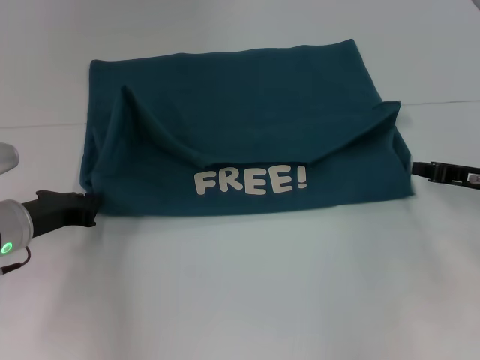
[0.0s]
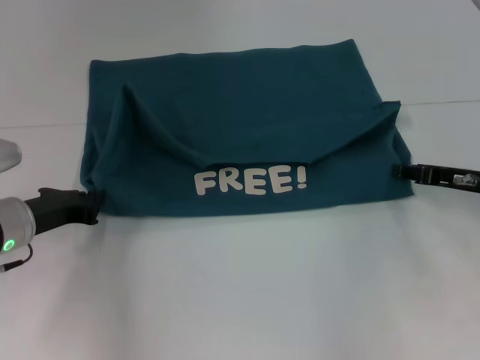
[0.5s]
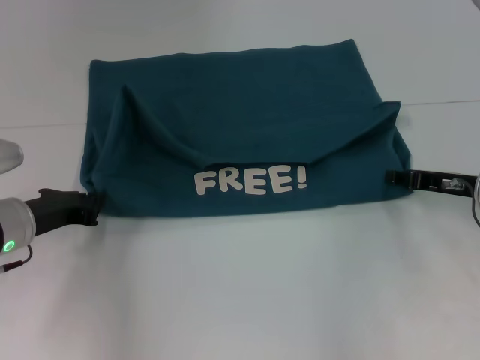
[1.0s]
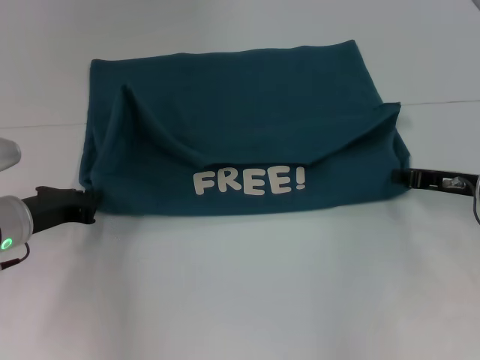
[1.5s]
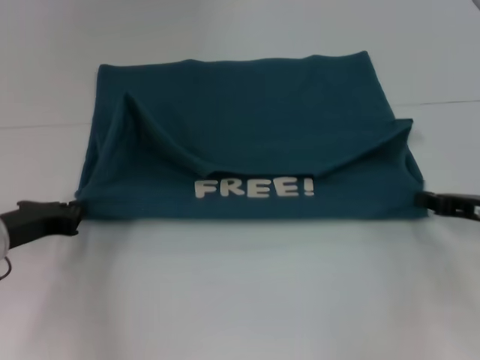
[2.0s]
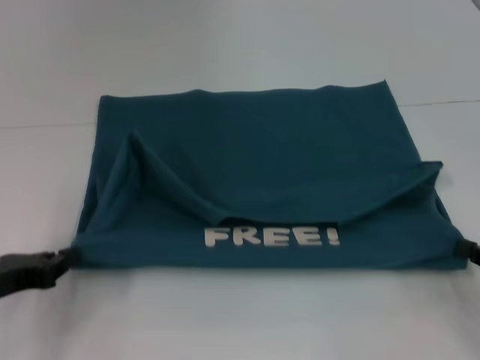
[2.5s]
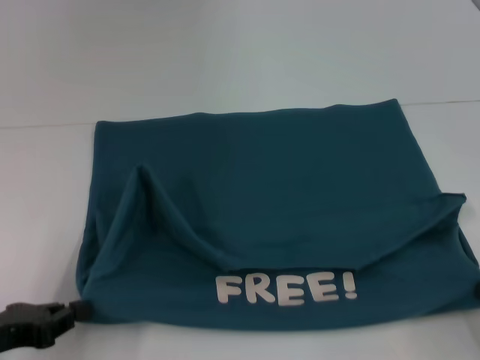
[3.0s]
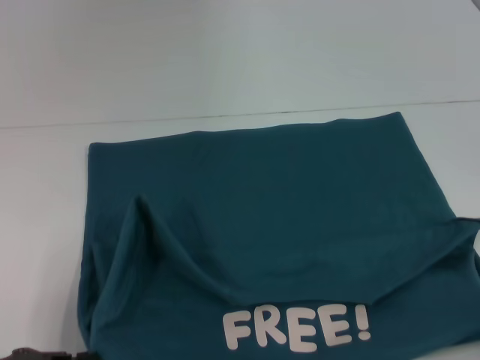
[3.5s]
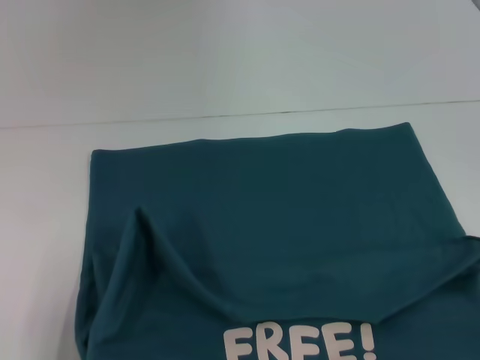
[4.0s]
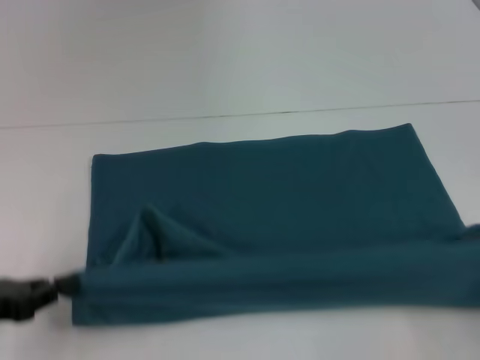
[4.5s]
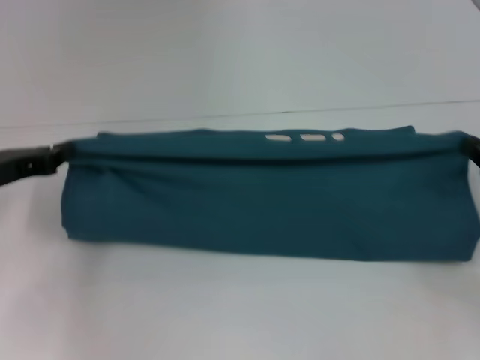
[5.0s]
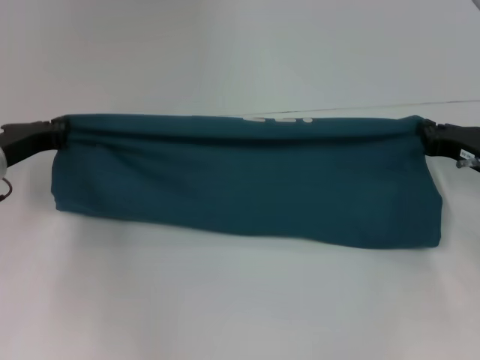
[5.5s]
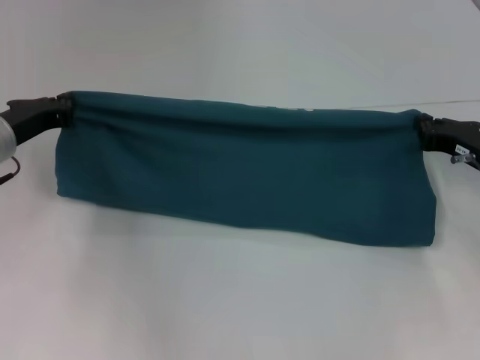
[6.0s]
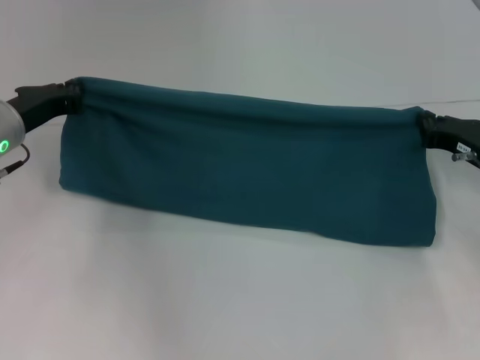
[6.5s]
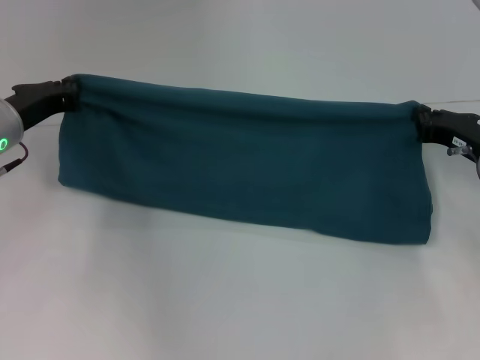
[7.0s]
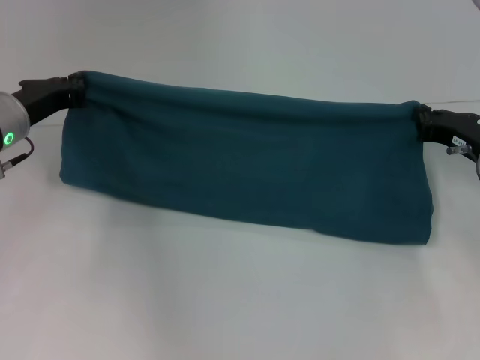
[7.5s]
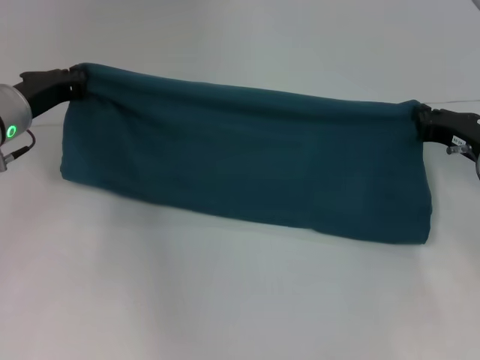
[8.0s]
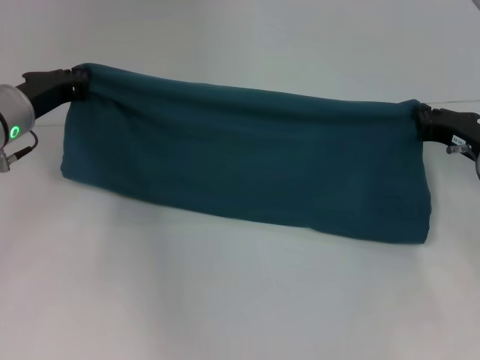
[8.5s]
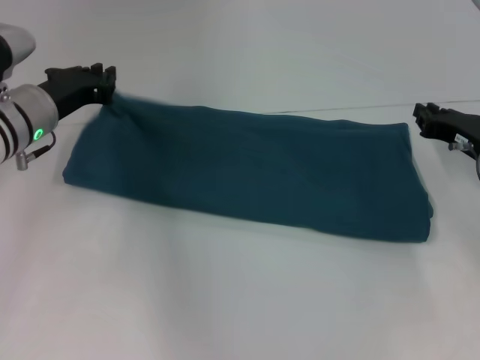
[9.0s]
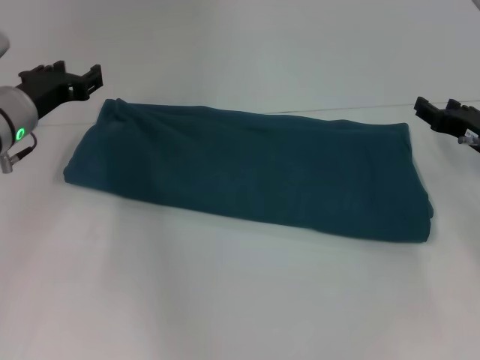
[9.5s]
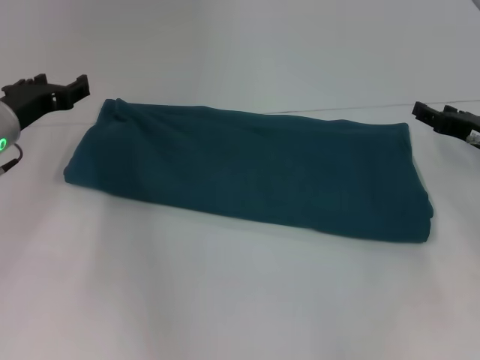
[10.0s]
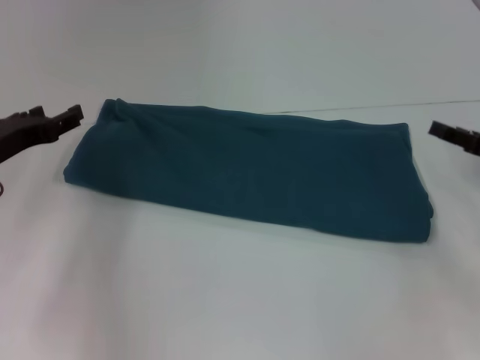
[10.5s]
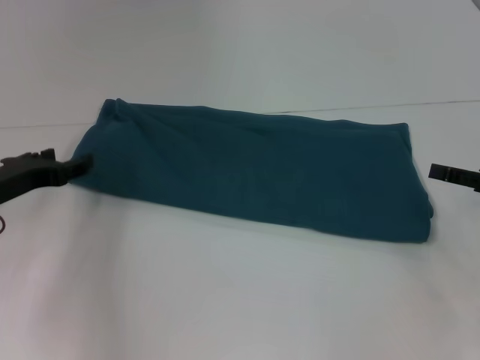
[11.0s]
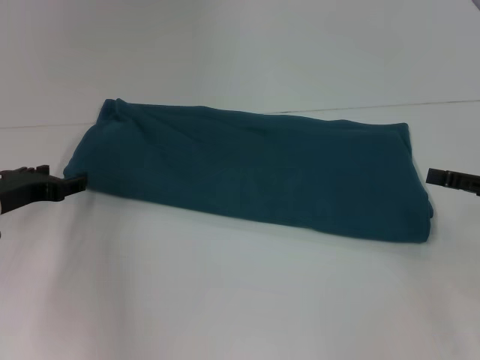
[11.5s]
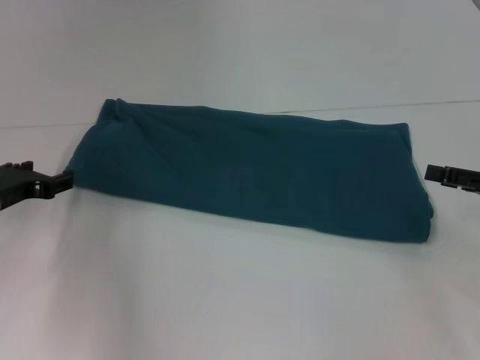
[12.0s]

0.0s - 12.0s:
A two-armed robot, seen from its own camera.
Step, 0.0s - 3.5s: Pull the clothes with your left hand.
Step, 0.0s - 3.5s: Pull the clothes with your right hand.
Step, 4.0s - 9.0s: Fold the clothes to the left.
Step, 4.0s - 9.0s: Fold the clothes to the right.
0.0s - 2.0s: The right gripper opens, then closes once more.
2.0s - 4.0s: Both grippers travel together backward, some 20 cm.
4.0s - 6.0s: The grippers both shift forward by roughly 25 cm.
6.0s - 8.0s: The grippers move only a little.
8.0s - 10.0s: The right gripper opens. Meanwhile the left gripper opens its fingers.
10.0s - 12.0s: The left gripper ends up roughly 5 cm from where it was. Meanwhile the right gripper is displaced backward by some 10 cm.

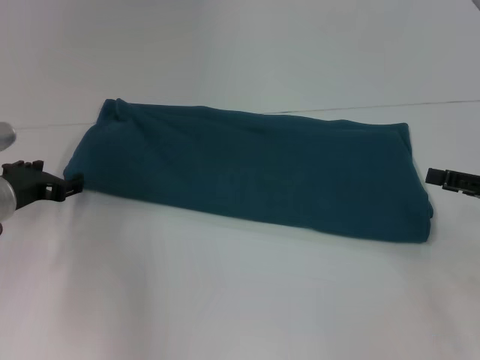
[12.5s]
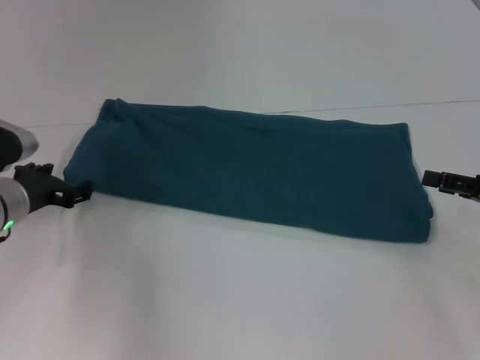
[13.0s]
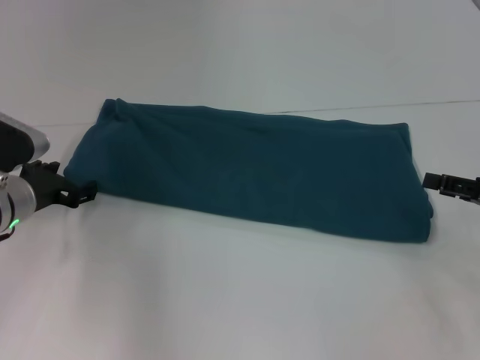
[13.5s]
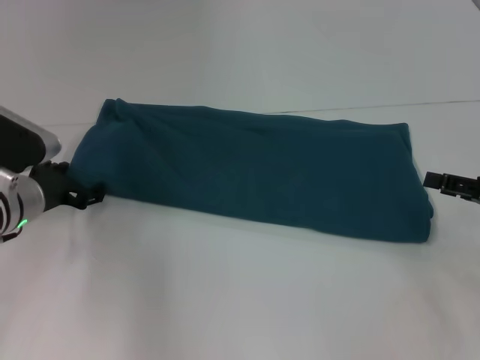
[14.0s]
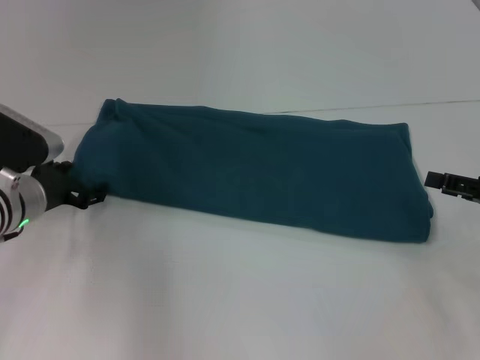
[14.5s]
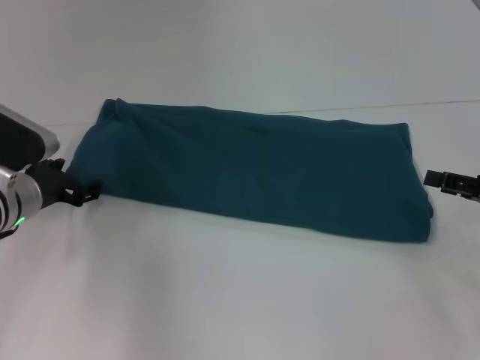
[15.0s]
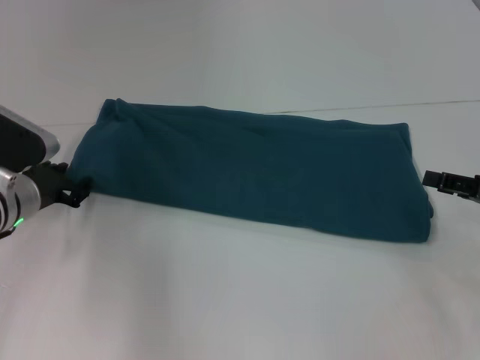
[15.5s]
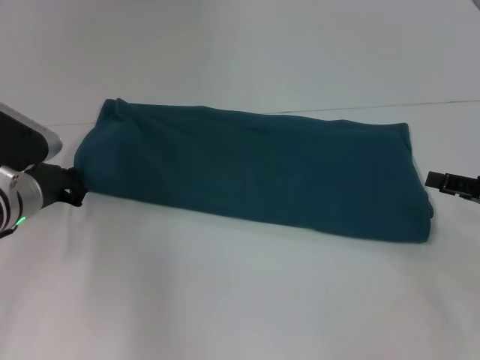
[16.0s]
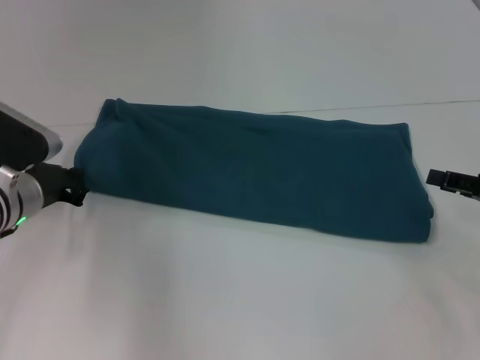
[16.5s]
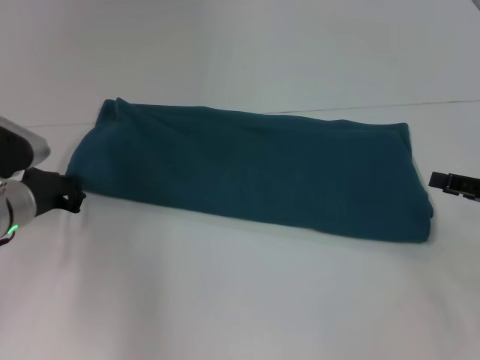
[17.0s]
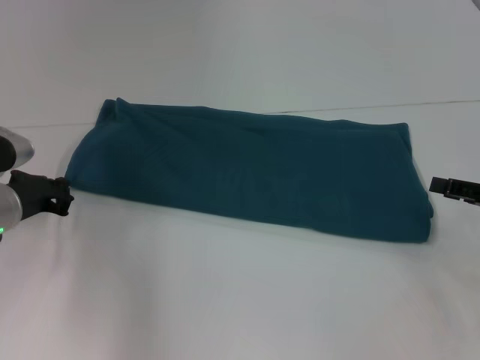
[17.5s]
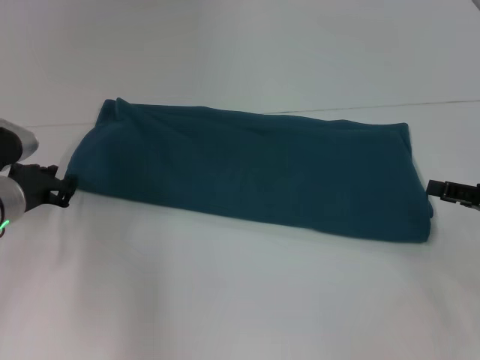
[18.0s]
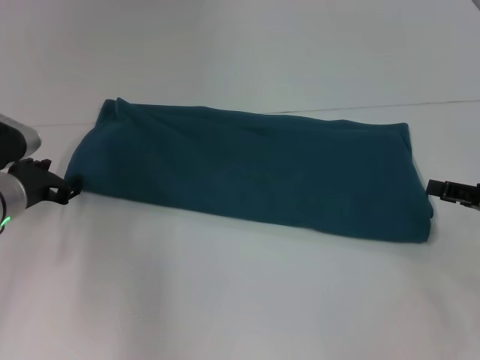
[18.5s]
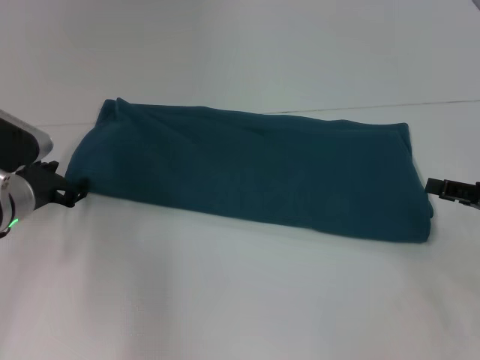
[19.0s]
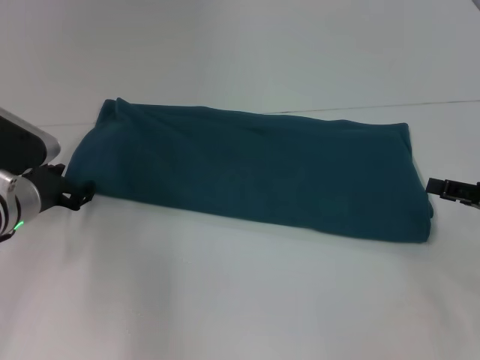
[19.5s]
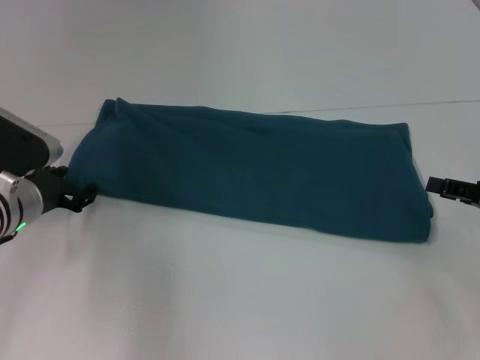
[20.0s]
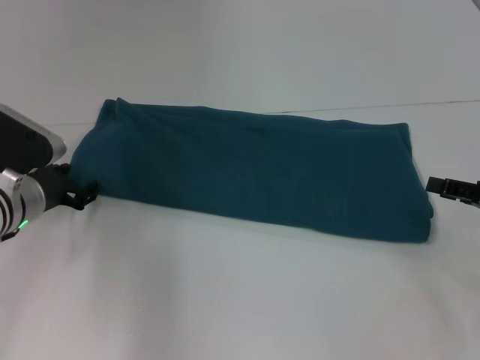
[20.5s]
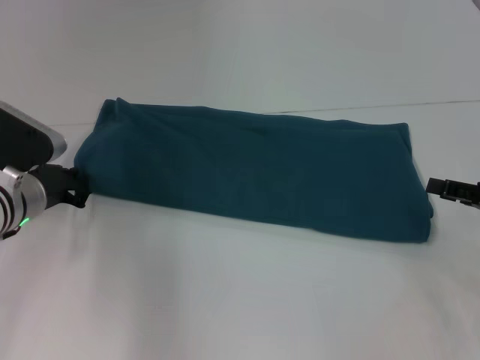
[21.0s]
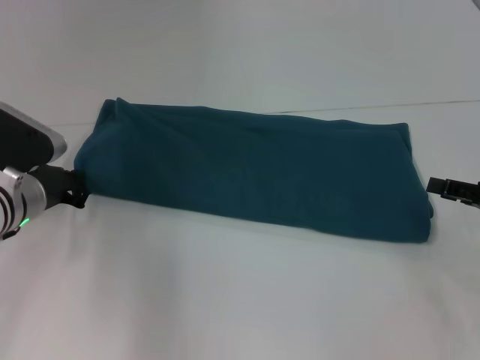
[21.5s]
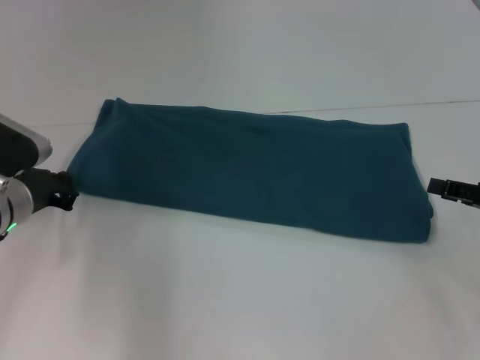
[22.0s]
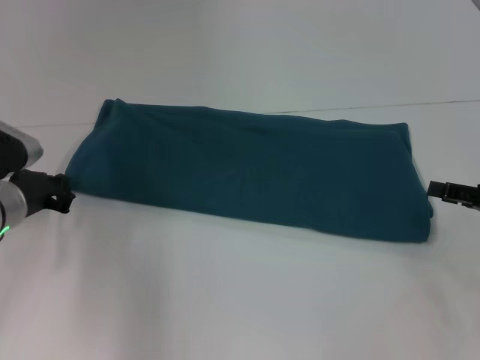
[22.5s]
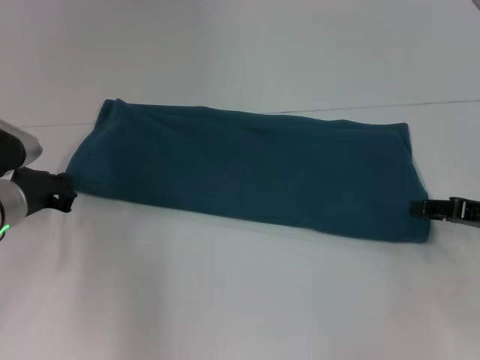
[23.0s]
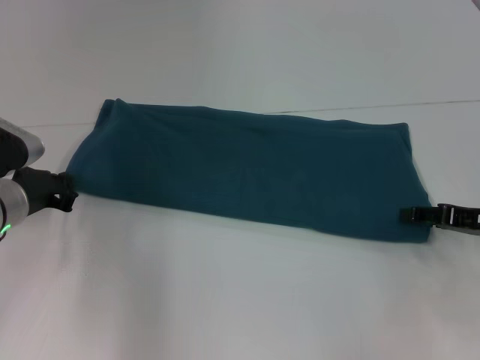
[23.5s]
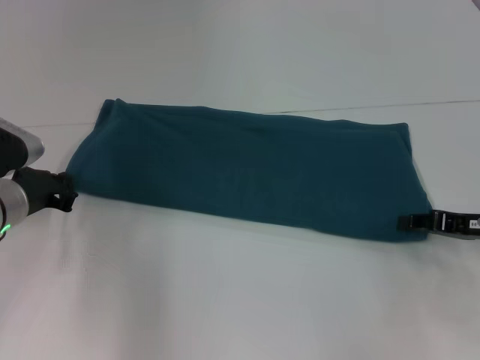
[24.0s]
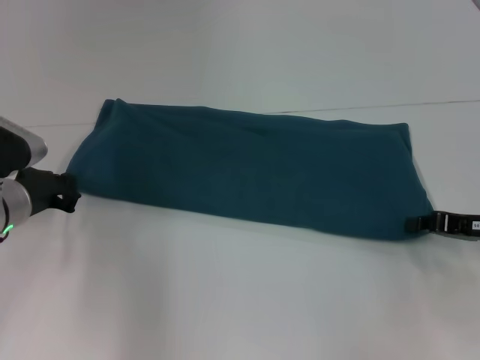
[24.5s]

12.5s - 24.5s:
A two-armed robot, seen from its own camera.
12.5s - 14.5s: The grippers move only a little.
14.5s - 16.5s: The left gripper closes its fingers.
16.5s - 18.5s: The left gripper opens.
18.5s - 20.5s: The grippers make only small movements.
20.5s - 22.5s: The left gripper closes.
22.5s - 24.5s: The right gripper closes up.

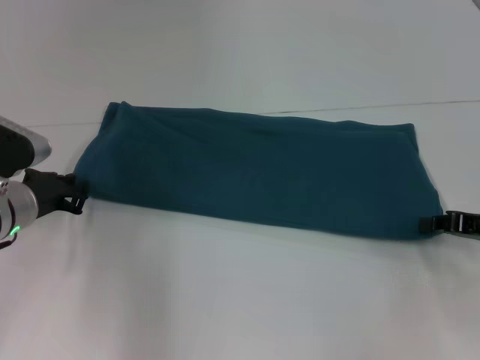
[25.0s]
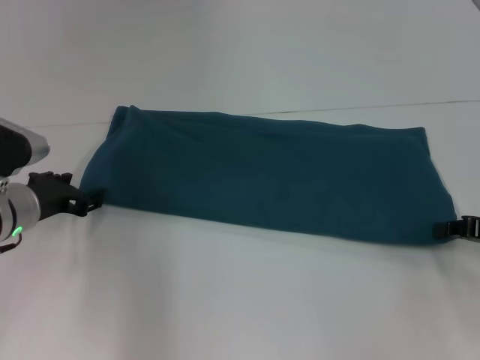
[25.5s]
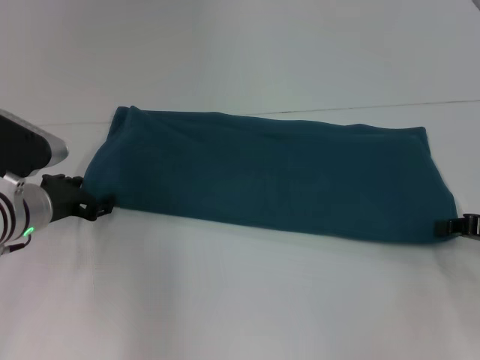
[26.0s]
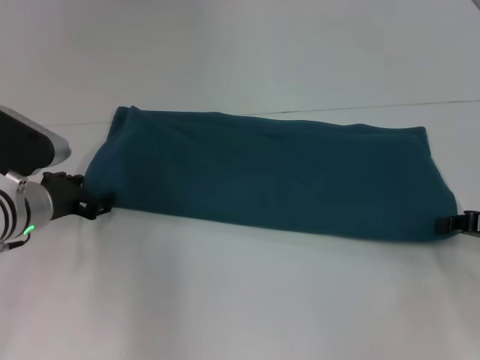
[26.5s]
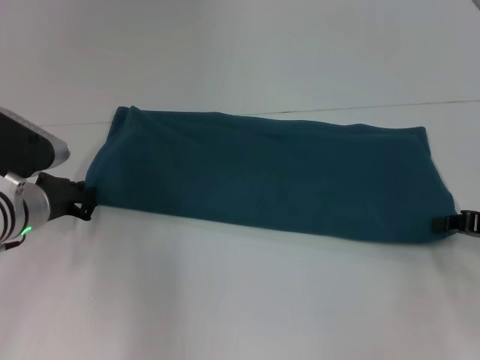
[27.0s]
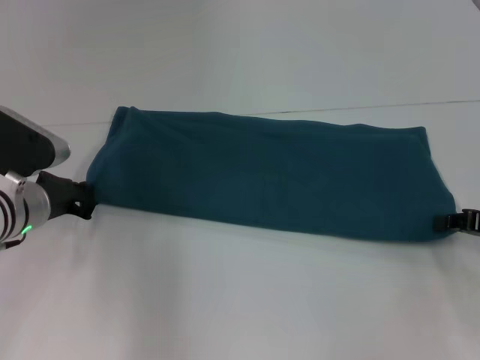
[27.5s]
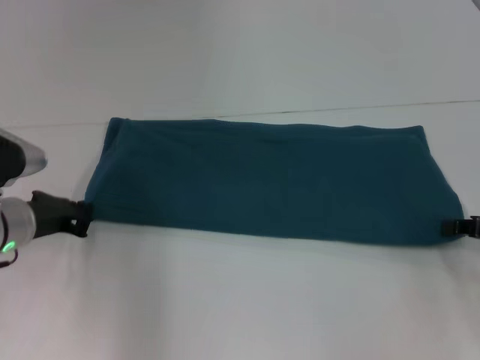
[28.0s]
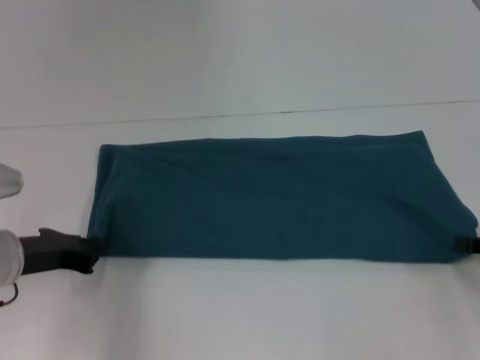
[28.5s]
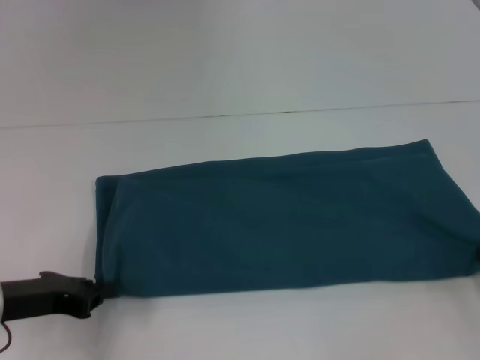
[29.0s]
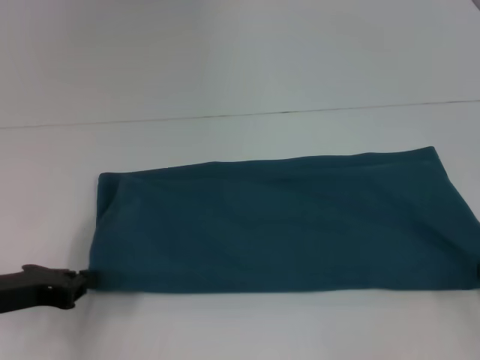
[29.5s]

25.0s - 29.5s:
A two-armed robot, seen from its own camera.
25.0s - 27.0s: The left gripper opens and closes again.
27.0s - 29.5s: The left gripper heads backward and to the left, covering some 10 cm, while the right gripper shifts some 5 cm backward.
